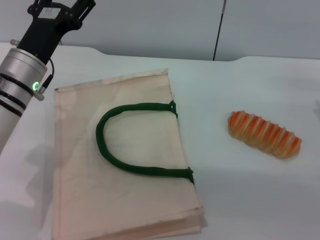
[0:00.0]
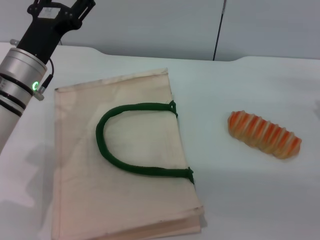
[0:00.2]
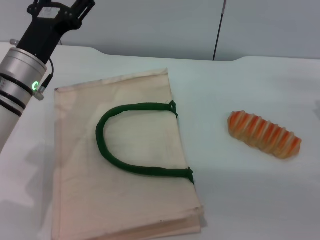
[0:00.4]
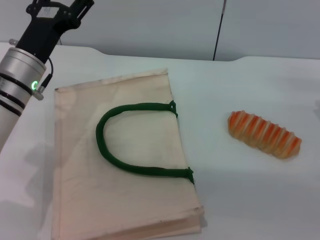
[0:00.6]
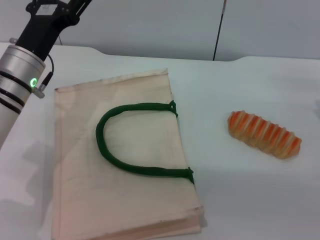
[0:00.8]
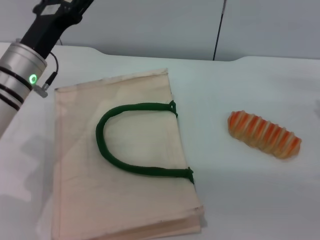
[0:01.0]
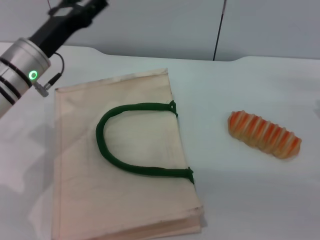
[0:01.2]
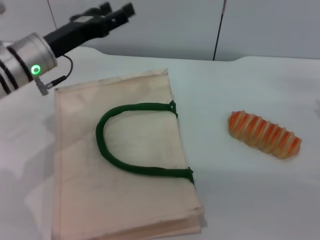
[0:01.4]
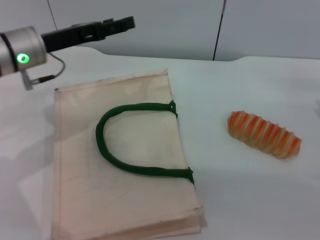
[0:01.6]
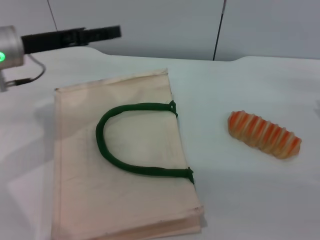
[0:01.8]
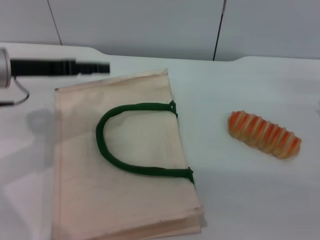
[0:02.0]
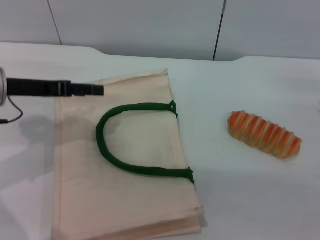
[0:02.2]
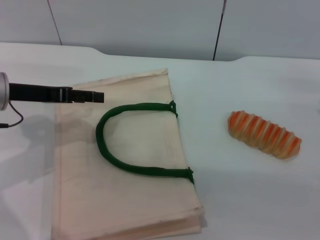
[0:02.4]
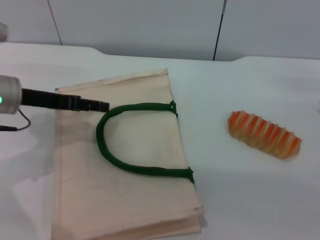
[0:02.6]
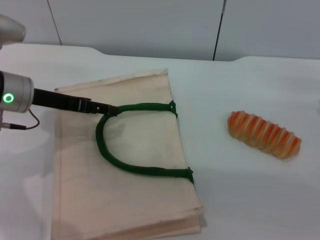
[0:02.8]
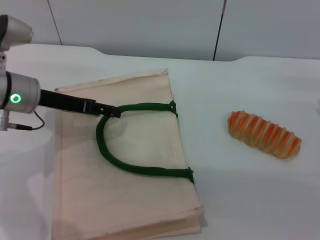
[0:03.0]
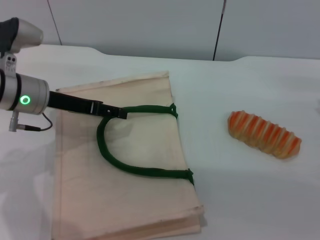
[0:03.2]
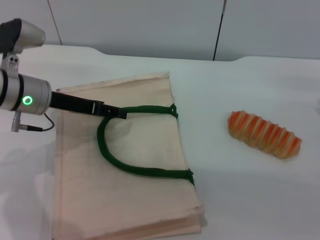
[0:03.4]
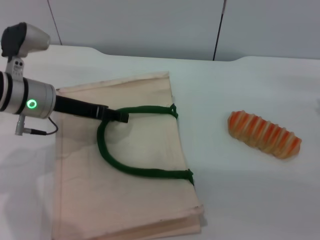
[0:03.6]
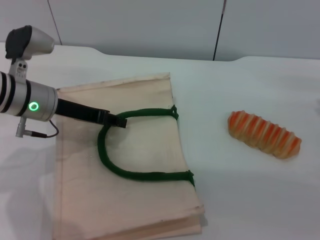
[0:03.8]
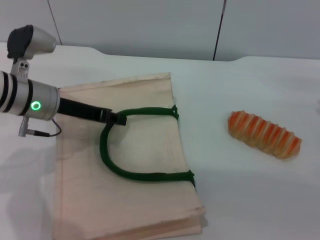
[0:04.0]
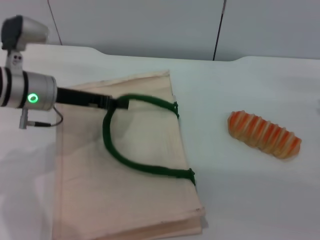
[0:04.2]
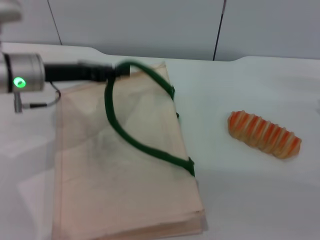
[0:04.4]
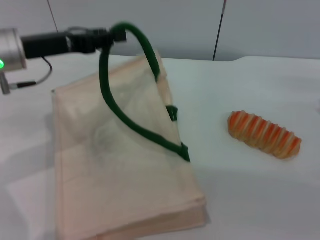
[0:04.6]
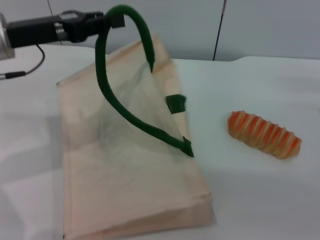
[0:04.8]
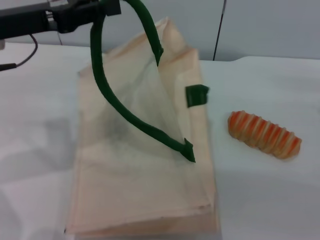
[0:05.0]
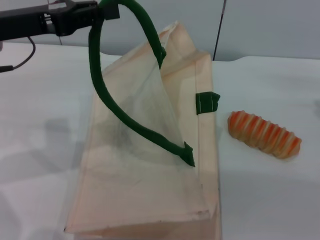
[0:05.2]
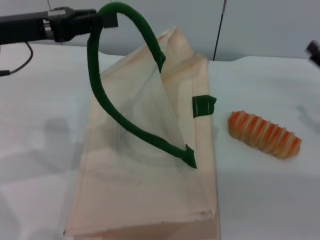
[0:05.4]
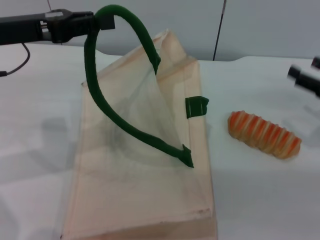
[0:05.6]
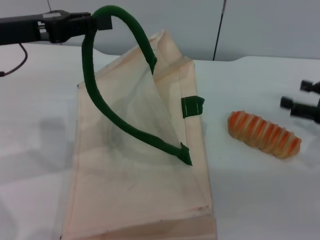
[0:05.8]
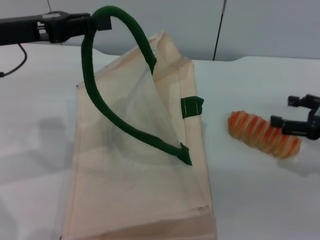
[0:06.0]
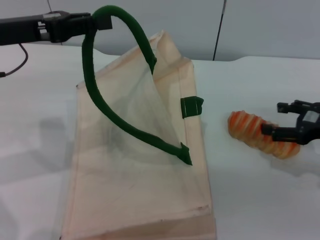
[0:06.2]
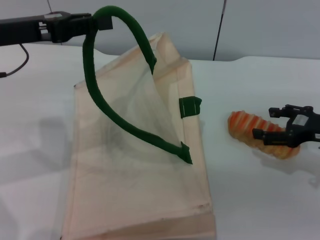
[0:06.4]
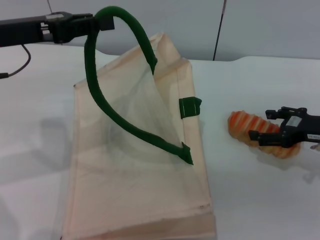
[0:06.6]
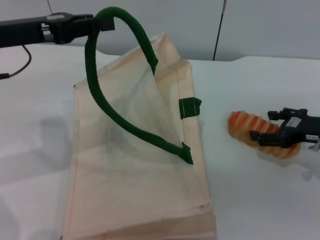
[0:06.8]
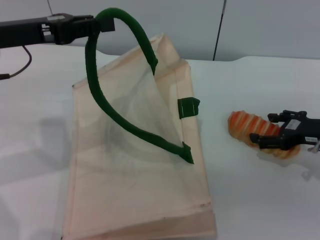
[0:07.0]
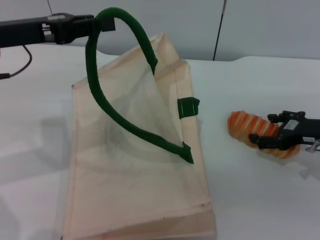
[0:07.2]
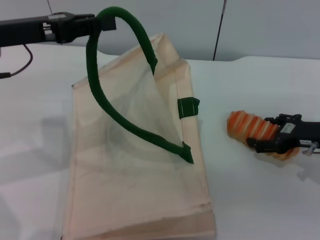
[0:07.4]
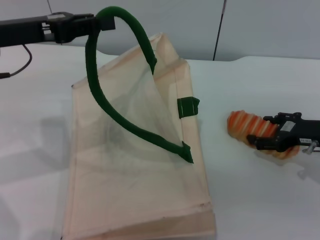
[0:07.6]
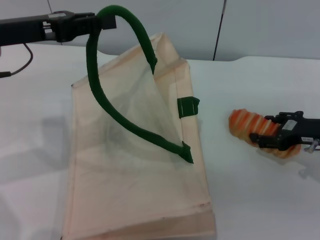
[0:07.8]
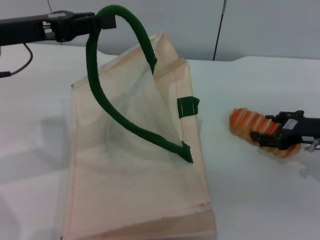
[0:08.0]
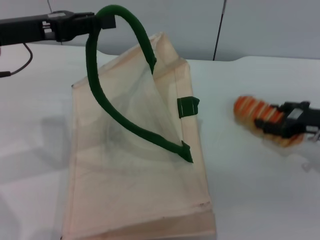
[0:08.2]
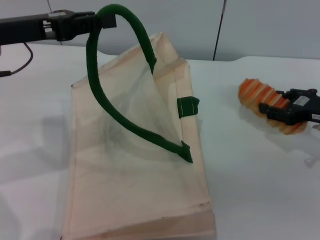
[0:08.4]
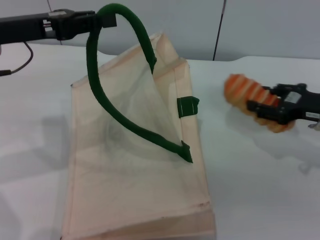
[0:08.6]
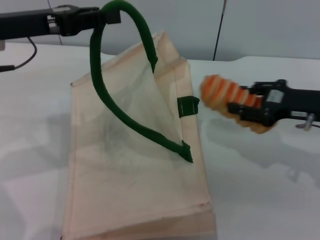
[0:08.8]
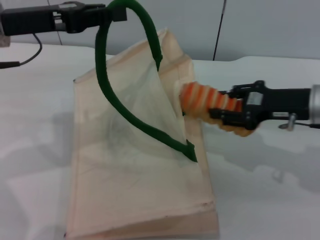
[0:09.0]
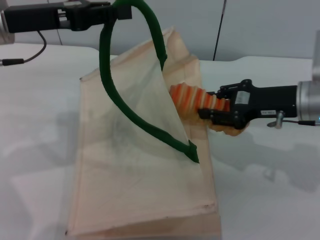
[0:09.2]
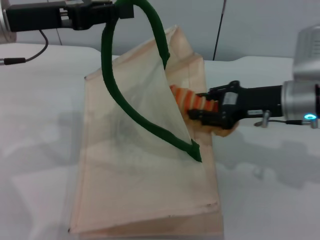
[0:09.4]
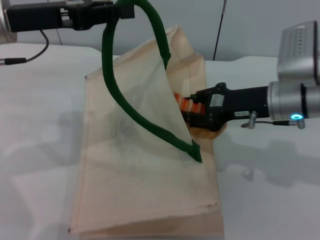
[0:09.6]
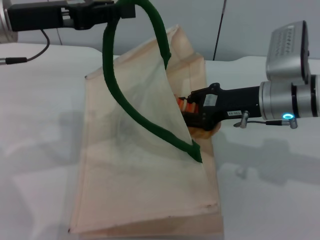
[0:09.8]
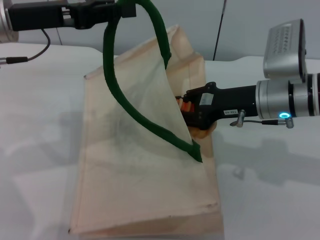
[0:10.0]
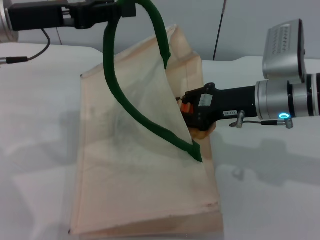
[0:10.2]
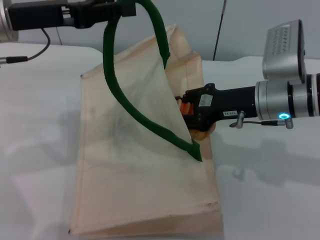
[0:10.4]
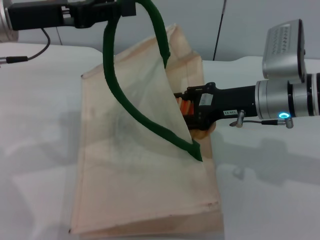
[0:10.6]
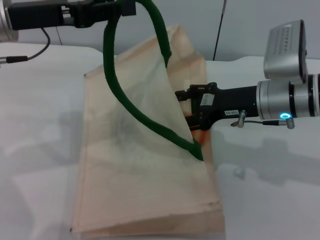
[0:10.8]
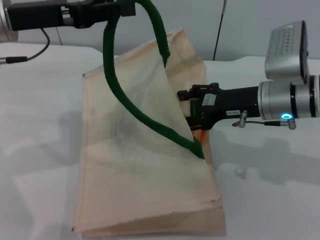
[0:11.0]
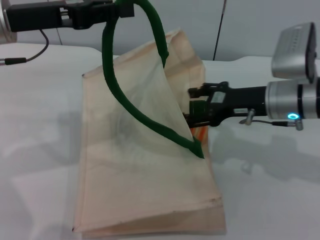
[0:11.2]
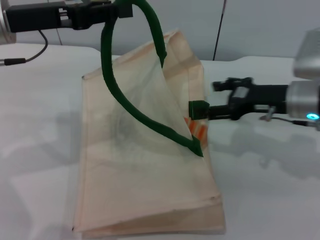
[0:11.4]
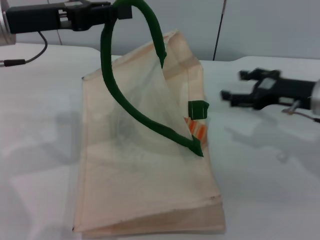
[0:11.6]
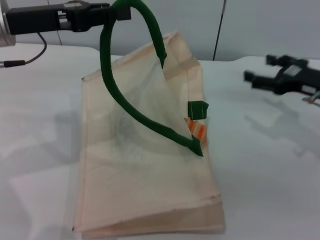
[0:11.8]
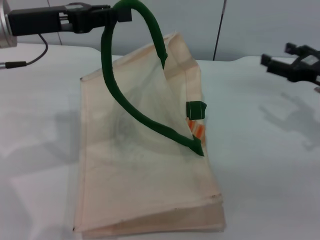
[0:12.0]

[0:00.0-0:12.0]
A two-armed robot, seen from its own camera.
Task of the whole recording: pick up the bread from the table and place it in the white handbag.
Step, 0:00.0 to 0:05.2: Lift the woven bag with the left gripper to open it.
Step, 0:05.4 to 0:08.6: Pick up the bread with the right gripper.
Step, 0:08.8 to 0:11.4: Place the bread into the woven bag with the right gripper.
0:00.0 to 0:01.6: The left gripper changes place by roughly 5 cm.
0:03.0 to 0:04.4: The left gripper closes its fingers.
0:04.4 to 0:06.0: The left gripper travels upward by some 5 cm.
0:06.0 to 0:07.6: The right gripper shifts by about 5 cm.
0:07.6 to 0:09.0: The right gripper shifts approximately 5 cm upward, and closes.
0:09.0 to 0:10.4: The right gripper is displaced to the left by roughly 5 cm.
0:10.4 to 0:12.0: The right gripper shifts approximately 15 cm to the right, and opens.

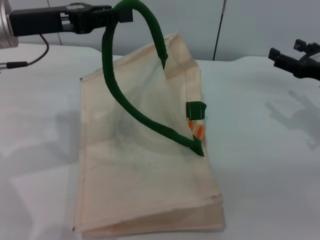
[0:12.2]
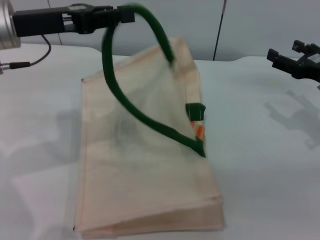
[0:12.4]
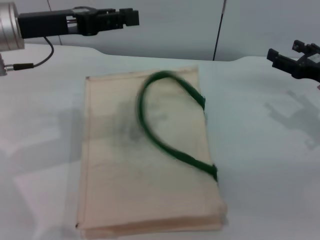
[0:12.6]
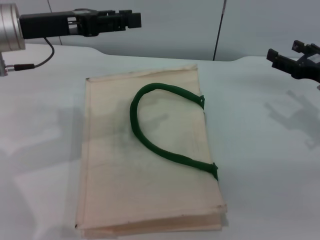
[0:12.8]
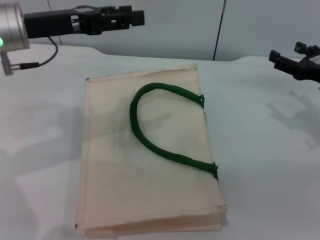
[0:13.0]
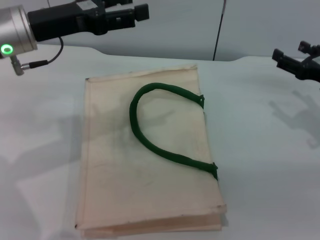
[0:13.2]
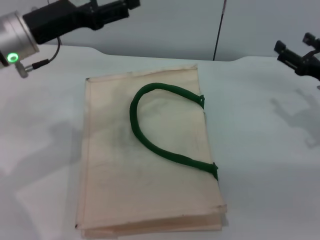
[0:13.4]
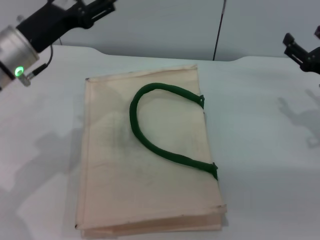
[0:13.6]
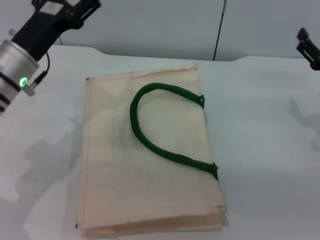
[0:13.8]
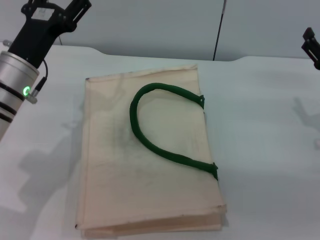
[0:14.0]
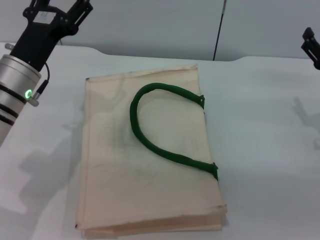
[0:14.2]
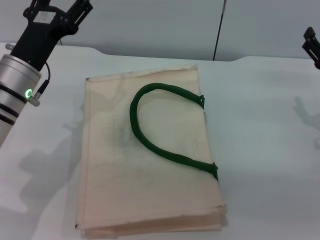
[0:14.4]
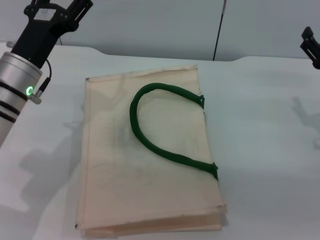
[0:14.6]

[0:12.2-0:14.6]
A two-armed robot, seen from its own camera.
Task of the whole recording: pick up the bread from the table and place it in the white handbag.
Step, 0:12.2 to 0:13.6: Lower the woven bag with the left gripper to close it.
0:12.2 to 0:13.4: The left gripper opens.
0:13.4 to 0:14.6: The left gripper heads downward, covering about 5 cm.

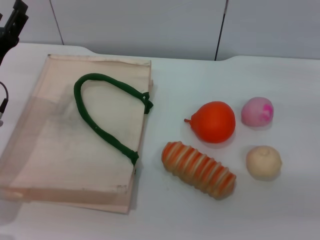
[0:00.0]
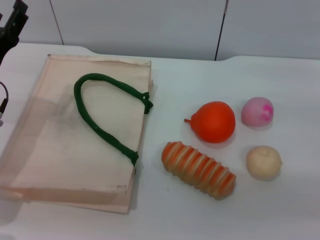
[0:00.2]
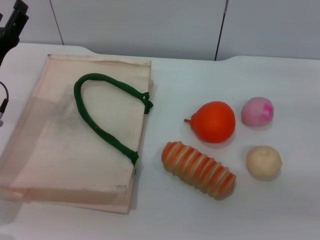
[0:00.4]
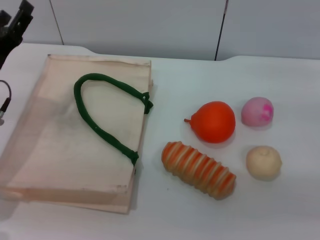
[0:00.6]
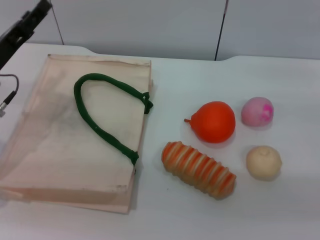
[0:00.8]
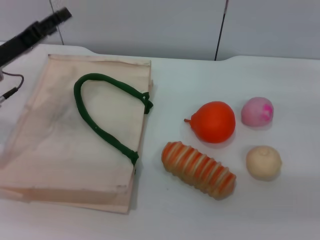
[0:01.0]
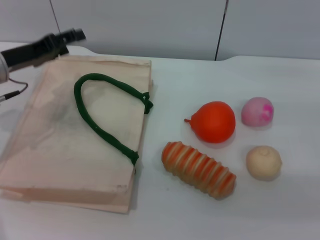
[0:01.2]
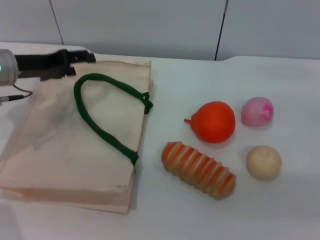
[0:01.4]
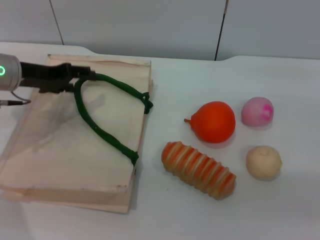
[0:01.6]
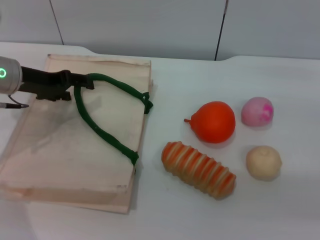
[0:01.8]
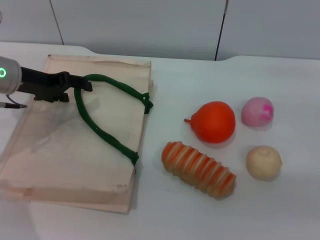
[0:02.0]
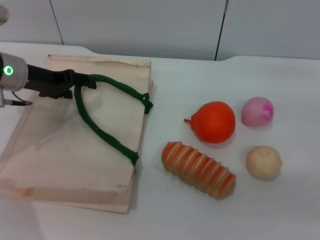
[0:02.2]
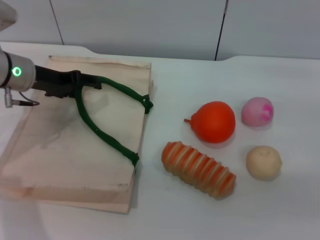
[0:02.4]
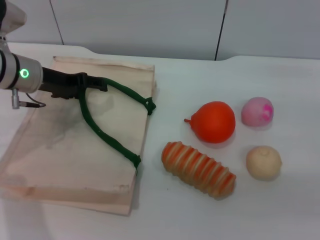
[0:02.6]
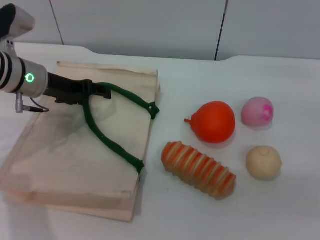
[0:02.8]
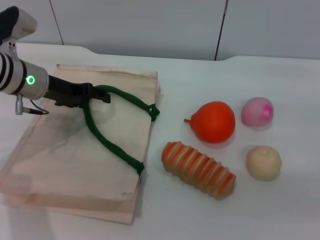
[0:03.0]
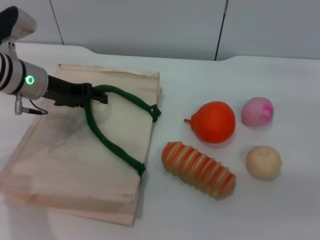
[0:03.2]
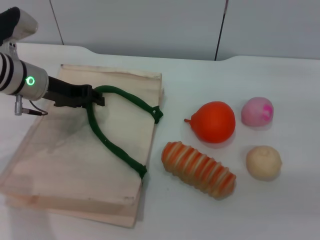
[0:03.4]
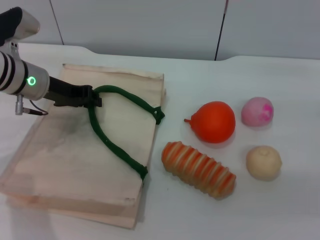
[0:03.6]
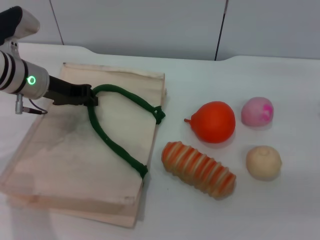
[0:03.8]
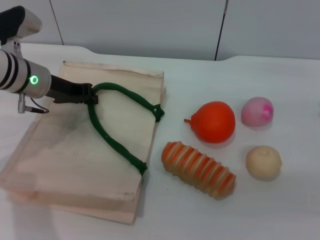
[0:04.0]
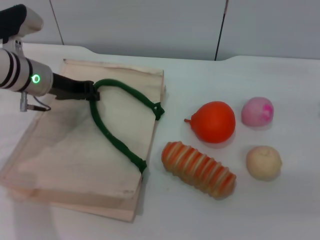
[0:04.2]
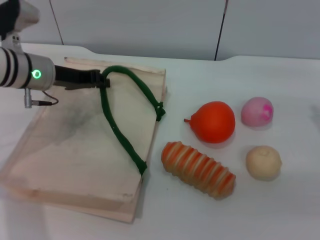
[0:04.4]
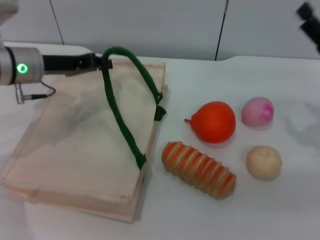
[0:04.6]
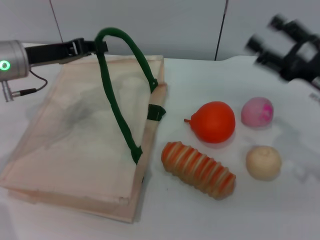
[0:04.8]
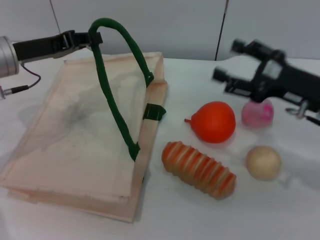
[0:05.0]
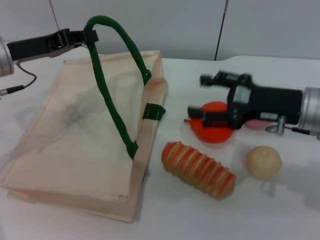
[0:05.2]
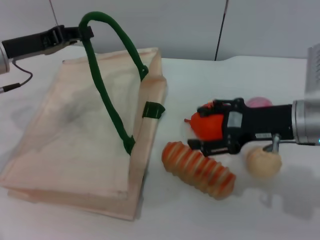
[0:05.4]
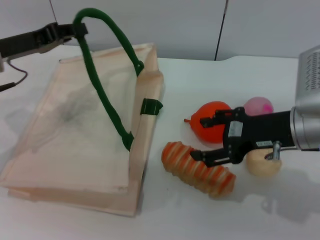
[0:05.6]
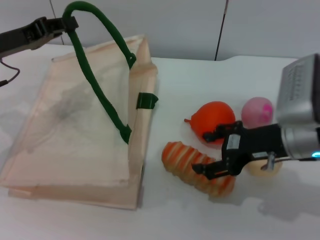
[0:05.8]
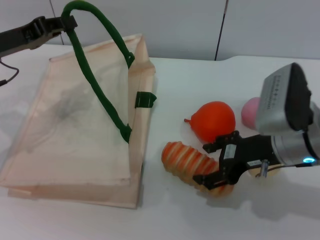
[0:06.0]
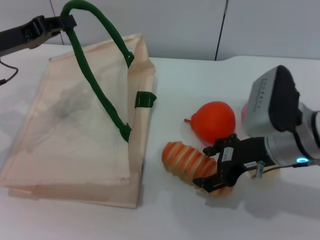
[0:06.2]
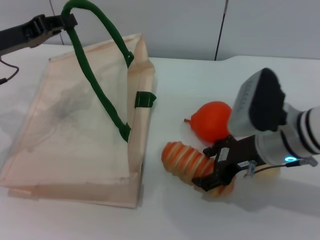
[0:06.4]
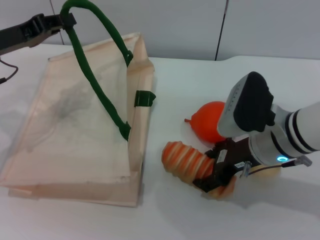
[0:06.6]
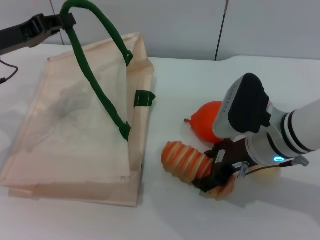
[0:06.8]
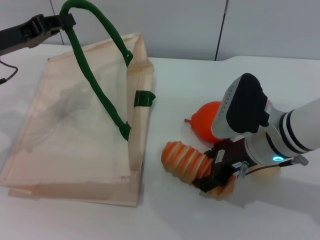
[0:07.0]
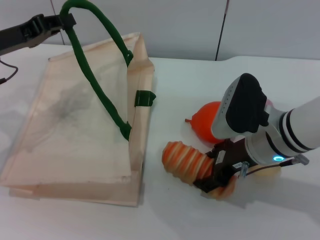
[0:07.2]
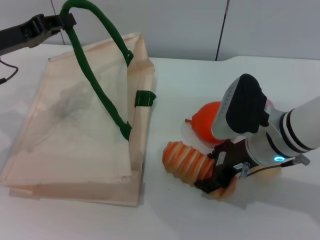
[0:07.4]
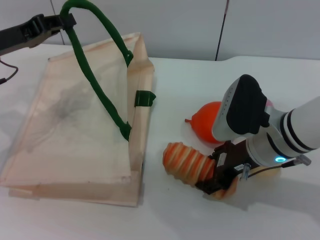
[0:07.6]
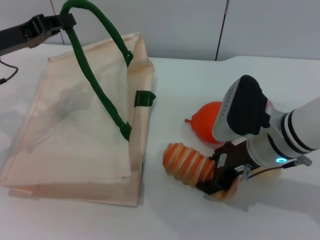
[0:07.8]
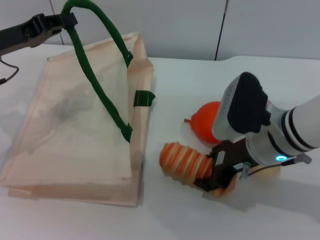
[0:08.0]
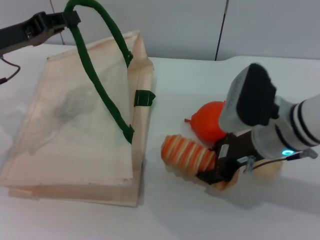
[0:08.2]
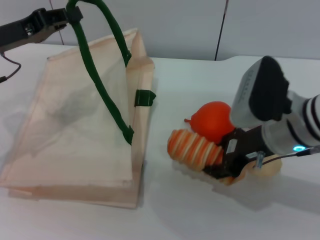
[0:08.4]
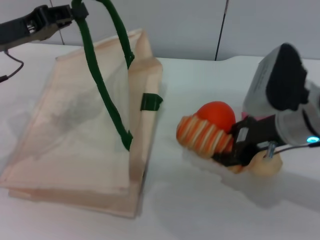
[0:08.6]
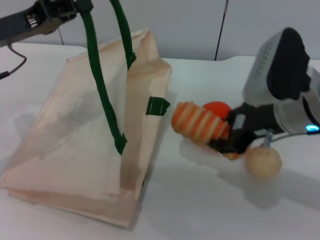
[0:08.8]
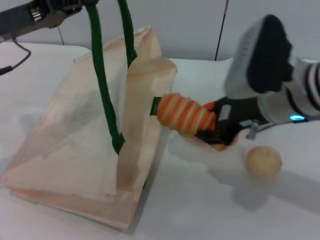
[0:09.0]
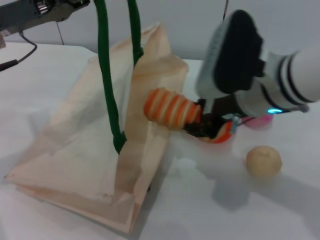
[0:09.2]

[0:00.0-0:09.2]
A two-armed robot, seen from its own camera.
Task of the whole recording: pick up the bread and egg yolk pastry from the table and place it in the white handbag.
Step, 0:00.0 to 0:04.4: Lift the woven bag with the left gripper to open it.
Step, 0:04.6 to 0:08.8: Pick up the bread with the right gripper.
0:00.0 to 0:01.6: The left gripper shifts about 10 cm forward and upward.
0:01.6 to 0:03.0: The grippers move only a little.
0:03.0 to 0:04.6: The left gripper closes up.
0:04.6 to 0:06.2: The right gripper goes about 10 cm to the left. Meanwhile the left gripper is displaced to the left by approximately 5 cm.
0:06.2 to 0:07.6: The grippers stay close to where they were, moving slightly.
0:07.6 to 0:09.2: The right gripper heads upward, covering roughly 10 cm, and closes. Meanwhile the left gripper changes place by some 5 cm.
